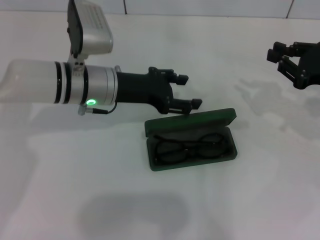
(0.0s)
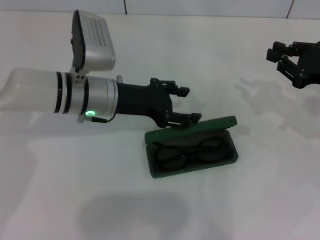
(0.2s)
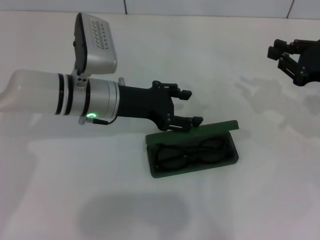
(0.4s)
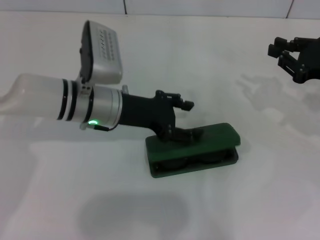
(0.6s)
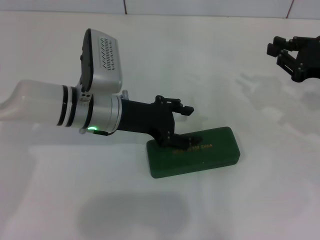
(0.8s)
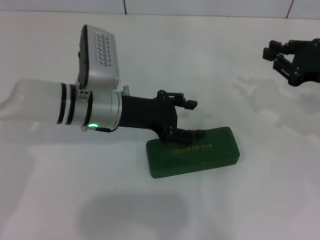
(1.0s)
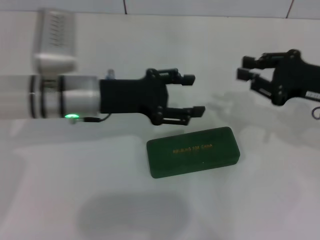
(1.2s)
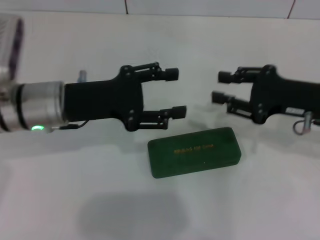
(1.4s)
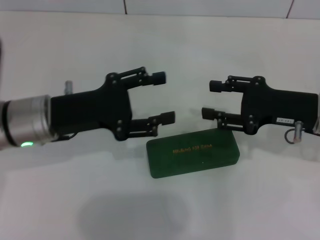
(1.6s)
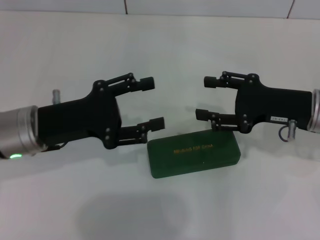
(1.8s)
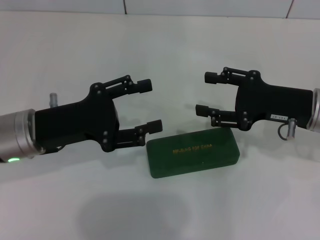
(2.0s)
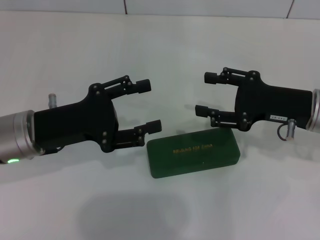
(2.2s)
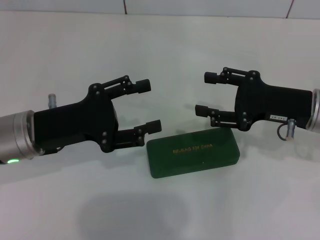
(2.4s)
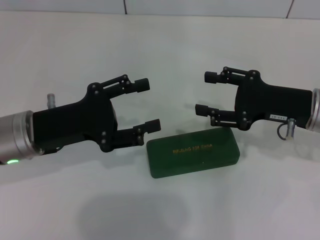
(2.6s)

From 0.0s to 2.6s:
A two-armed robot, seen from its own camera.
From 1.2s to 2.6s: The right gripper moves some 5 cm, and opens; the left gripper is displaced backward and to the left by about 10 cm.

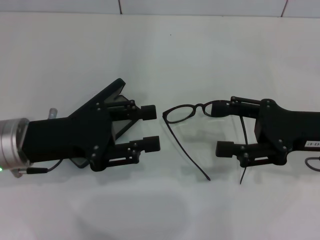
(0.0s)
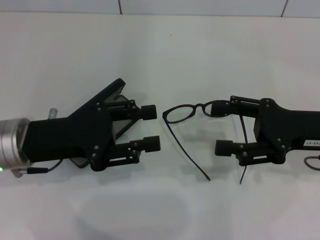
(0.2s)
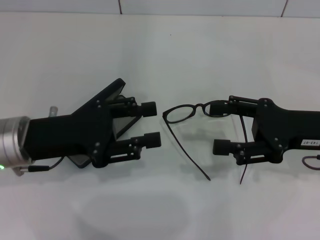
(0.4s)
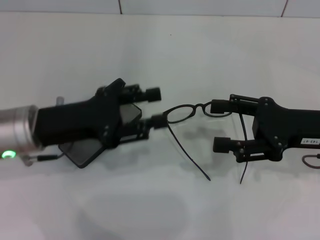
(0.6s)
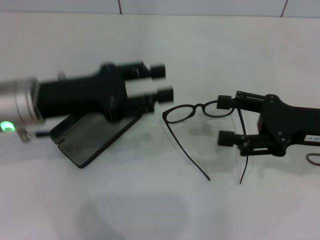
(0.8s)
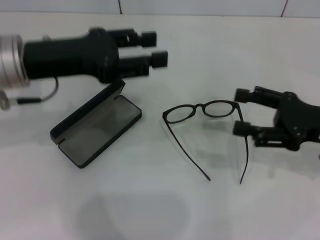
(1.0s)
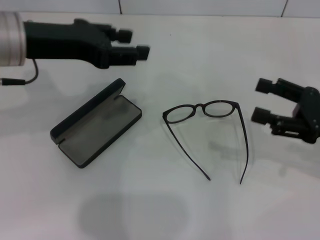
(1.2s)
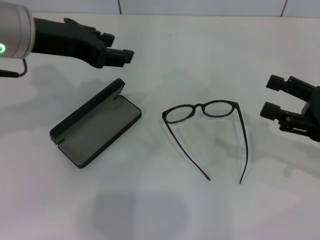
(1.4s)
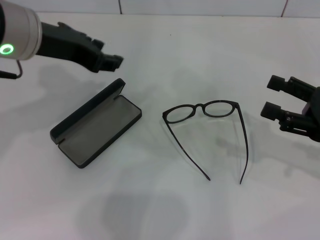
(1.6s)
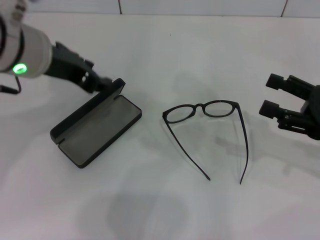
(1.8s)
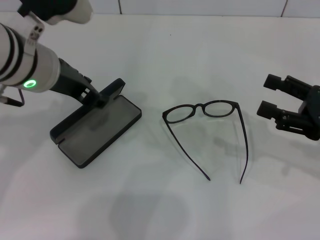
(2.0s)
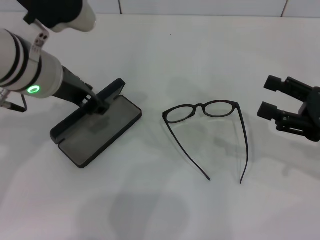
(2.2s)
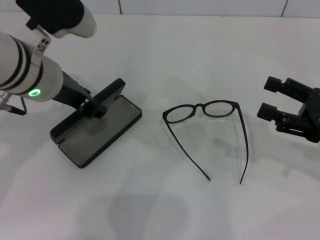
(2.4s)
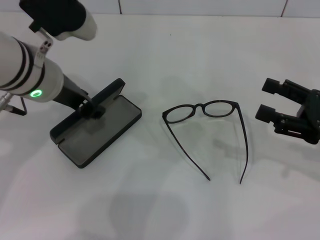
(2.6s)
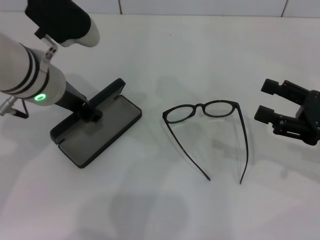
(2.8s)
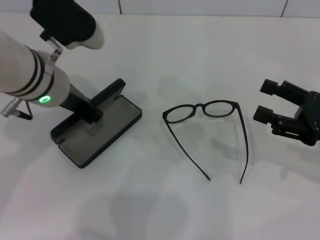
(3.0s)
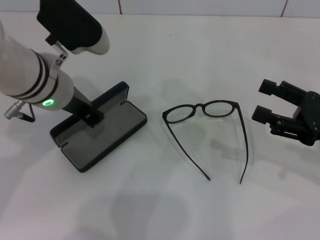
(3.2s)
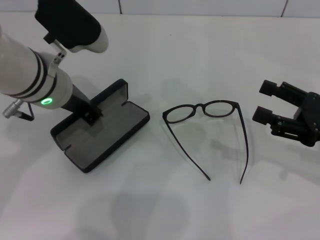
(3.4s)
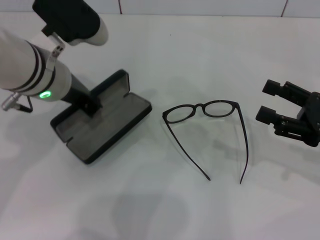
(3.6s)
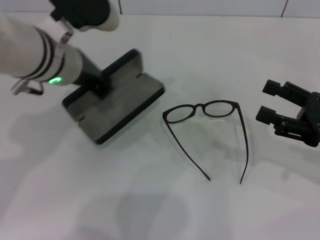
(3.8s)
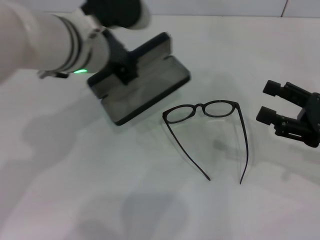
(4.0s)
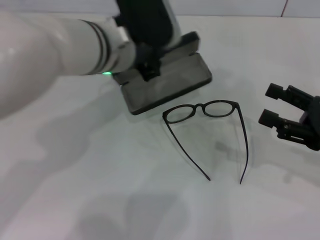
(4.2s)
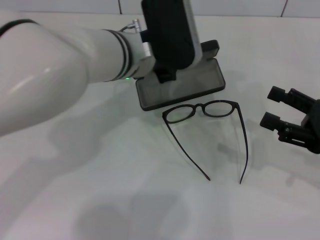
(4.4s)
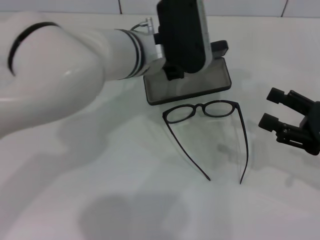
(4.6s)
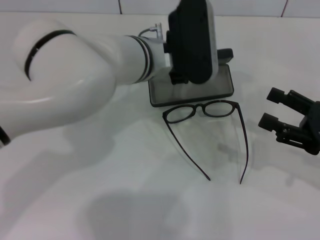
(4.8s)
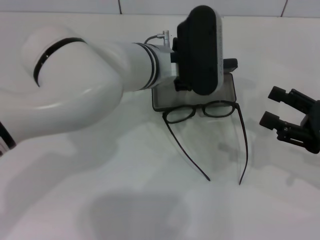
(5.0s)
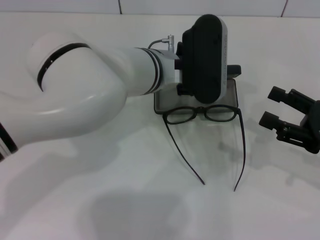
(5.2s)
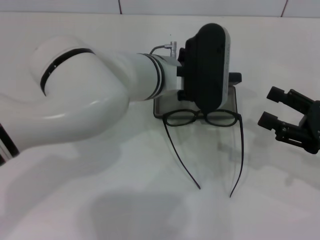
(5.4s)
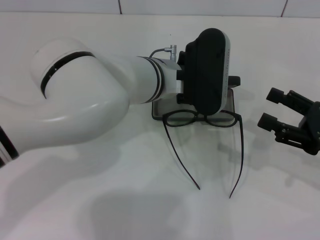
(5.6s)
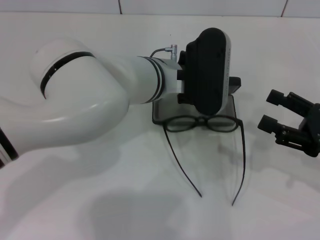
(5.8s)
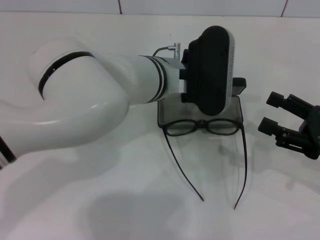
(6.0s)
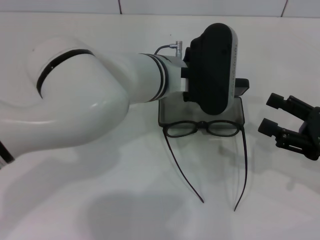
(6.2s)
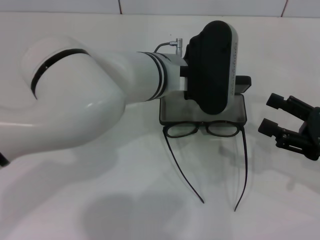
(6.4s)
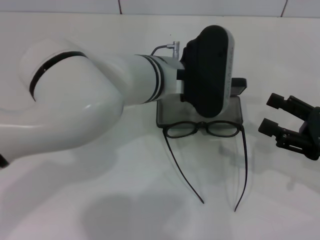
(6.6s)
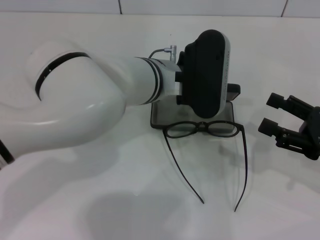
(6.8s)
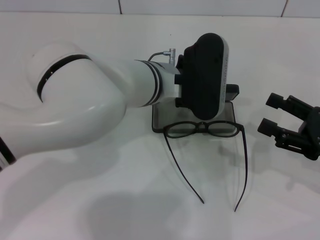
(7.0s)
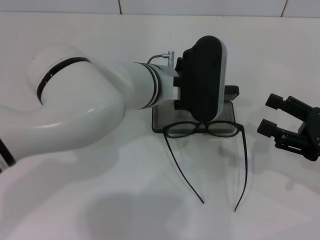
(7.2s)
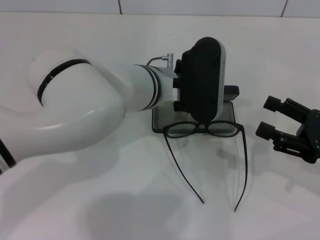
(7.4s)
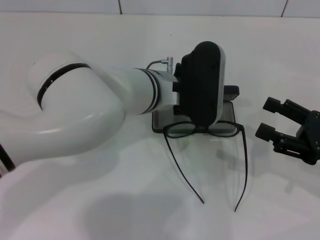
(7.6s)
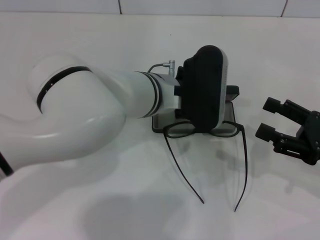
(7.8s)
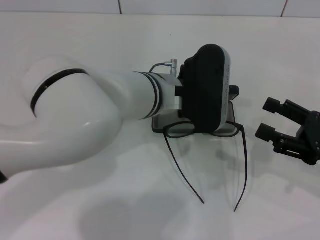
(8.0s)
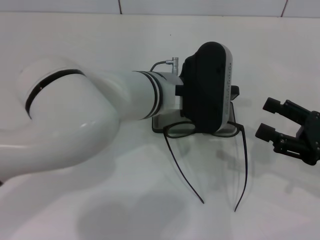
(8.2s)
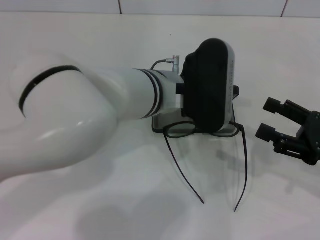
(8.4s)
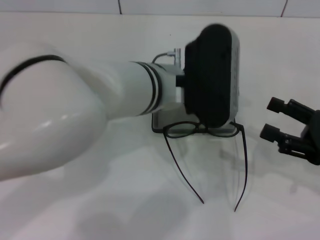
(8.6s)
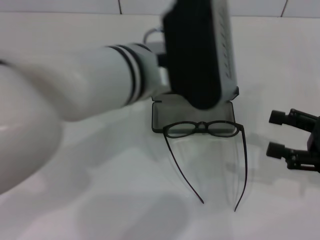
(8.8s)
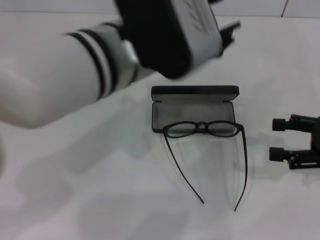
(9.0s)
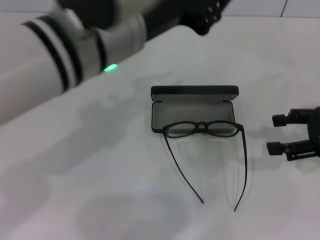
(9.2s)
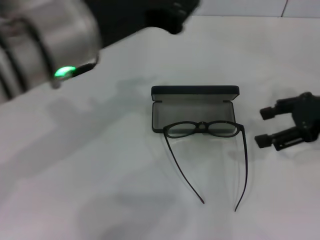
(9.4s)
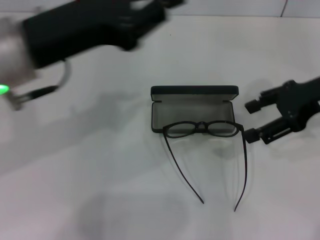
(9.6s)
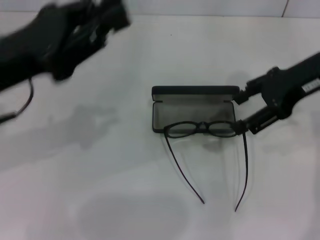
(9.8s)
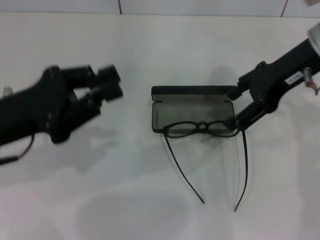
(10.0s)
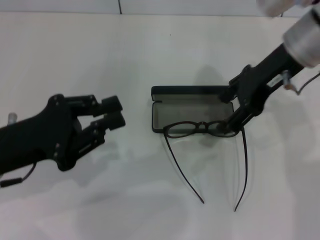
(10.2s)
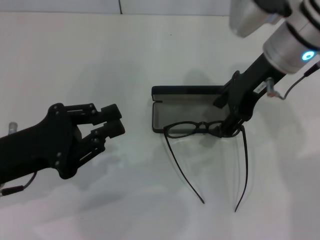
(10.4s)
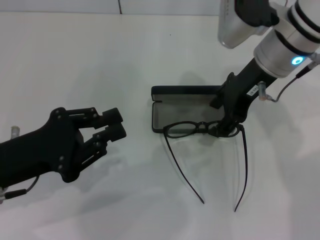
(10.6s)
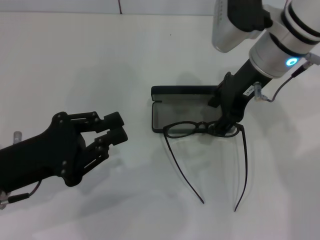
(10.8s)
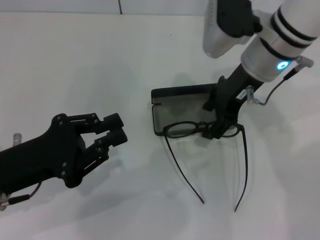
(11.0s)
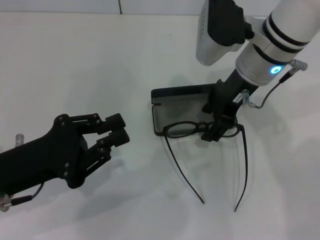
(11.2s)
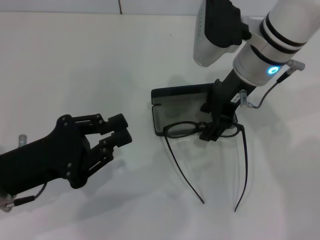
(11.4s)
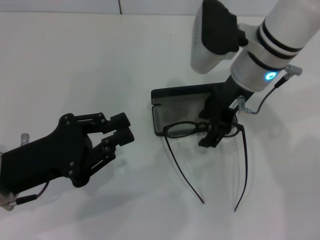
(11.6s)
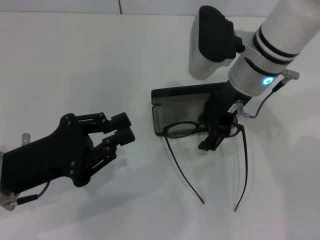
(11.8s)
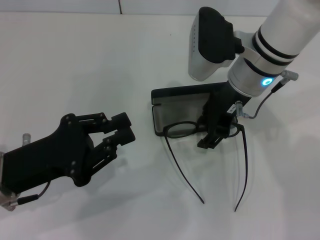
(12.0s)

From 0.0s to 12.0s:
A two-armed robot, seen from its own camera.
Step, from 0.0s to 3.2s: Grab the glasses case with your left hand.
Step, from 3.4s to 8.0s: Place the glasses case in the center of the table with your left hand.
From 0.0s to 1.6s: The right gripper heads to the right, covering some 5 cm. The left gripper goes approximately 15 cm upward and forward.
From 1.6s to 3.0s: The left gripper is displaced downward by some 10 cm.
From 3.0s to 4.4s: The left gripper heads to the right, covering about 10 cm, and closes up.
From 4.4s to 6.0s: The left gripper opens its fingers.
From 6.0s to 7.6s: The grippers stay close to where they were, moving slightly.
From 7.6s to 9.0s: The right gripper changes place by about 5 cm. Meanwhile the left gripper shifts roughly 15 cm upward and backward.
From 9.0s to 10.4s: The right gripper shifts approximately 25 cm to the left, forward and upward; the left gripper goes roughly 25 cm to the left and downward, and closes.
From 10.4s to 12.0s: The right gripper ends up roughly 5 cm from where it was.

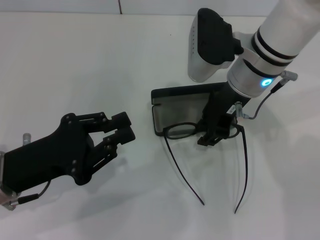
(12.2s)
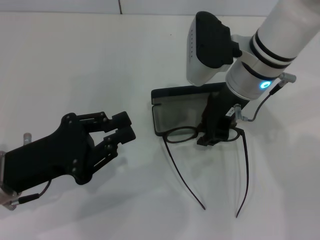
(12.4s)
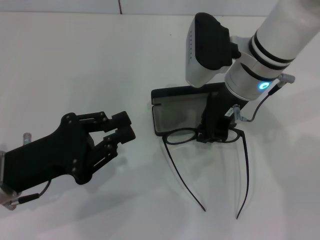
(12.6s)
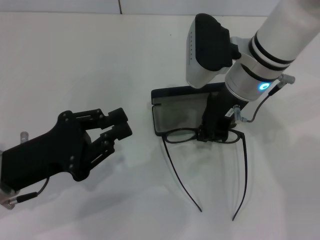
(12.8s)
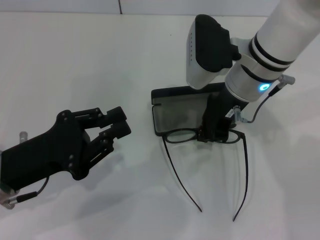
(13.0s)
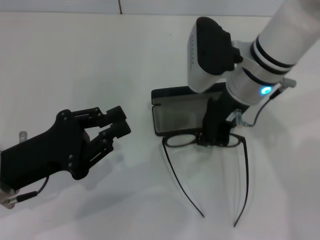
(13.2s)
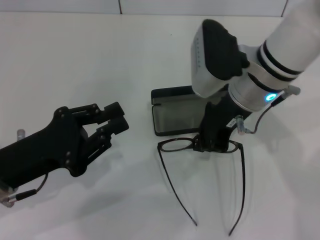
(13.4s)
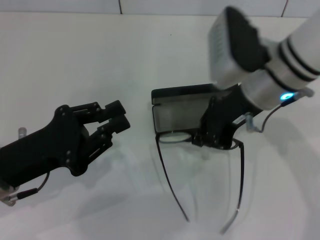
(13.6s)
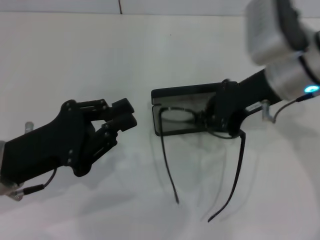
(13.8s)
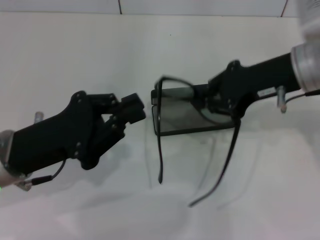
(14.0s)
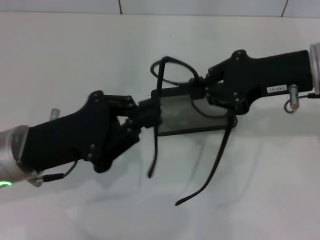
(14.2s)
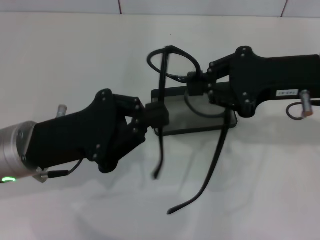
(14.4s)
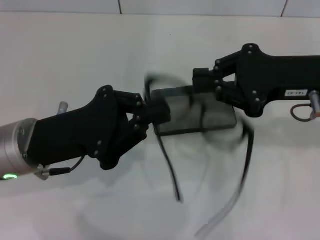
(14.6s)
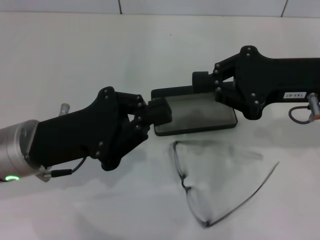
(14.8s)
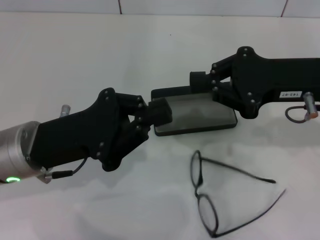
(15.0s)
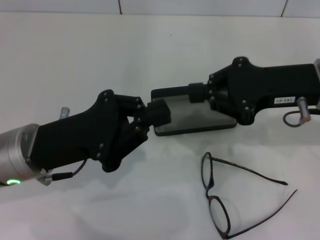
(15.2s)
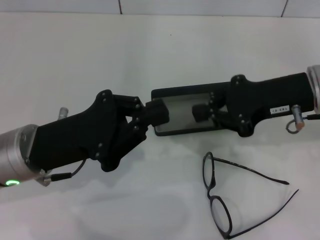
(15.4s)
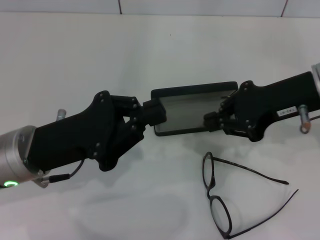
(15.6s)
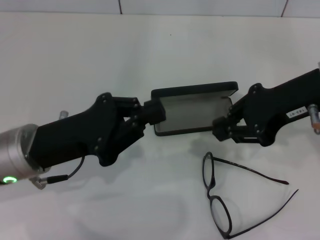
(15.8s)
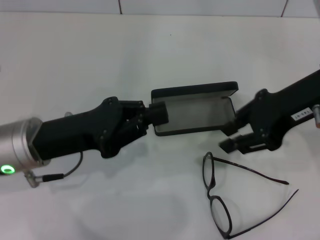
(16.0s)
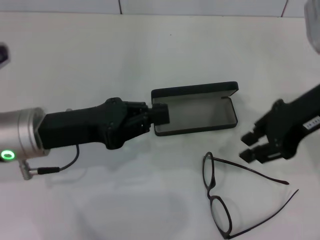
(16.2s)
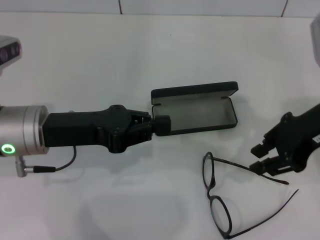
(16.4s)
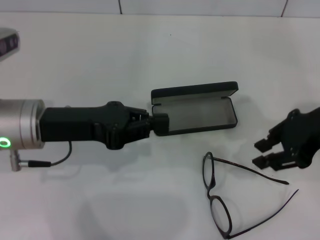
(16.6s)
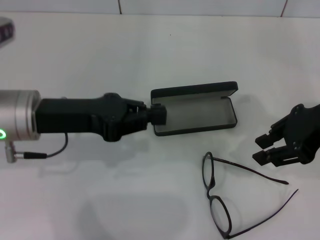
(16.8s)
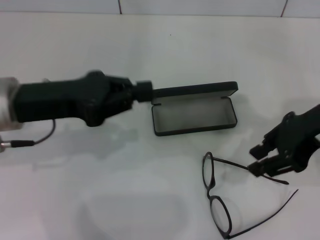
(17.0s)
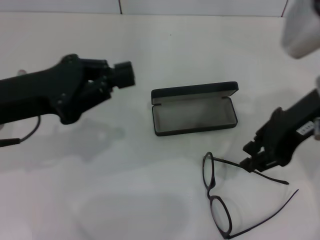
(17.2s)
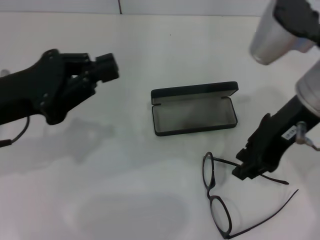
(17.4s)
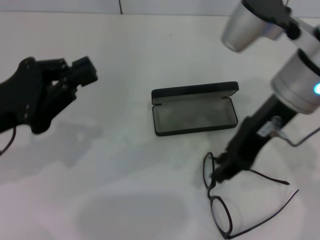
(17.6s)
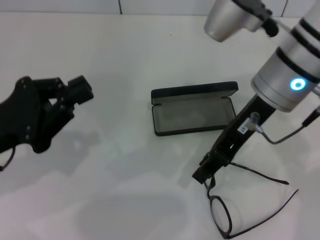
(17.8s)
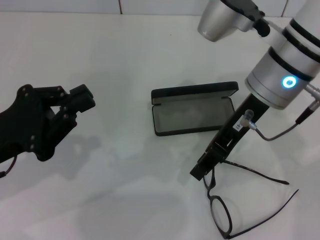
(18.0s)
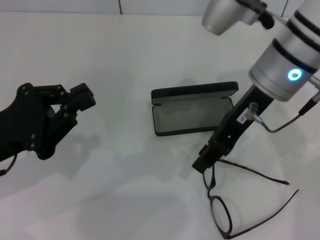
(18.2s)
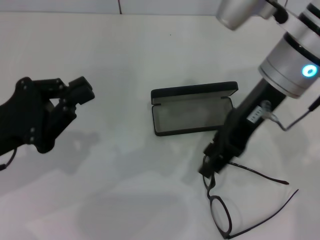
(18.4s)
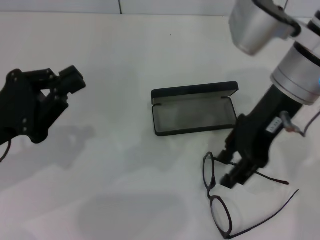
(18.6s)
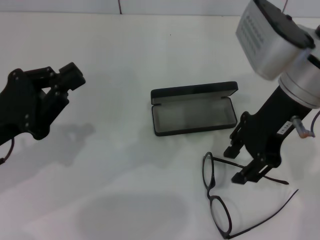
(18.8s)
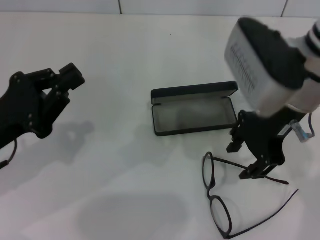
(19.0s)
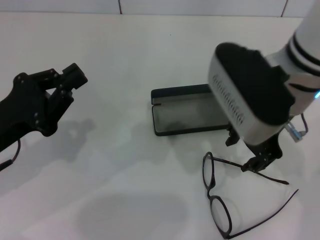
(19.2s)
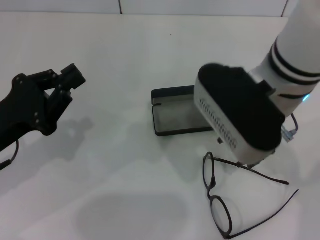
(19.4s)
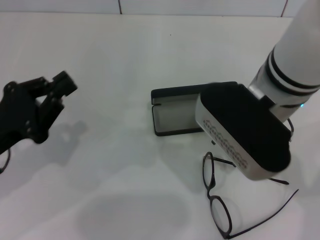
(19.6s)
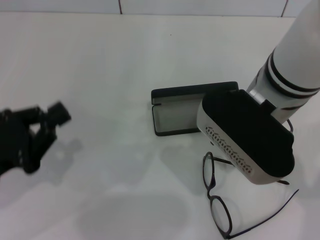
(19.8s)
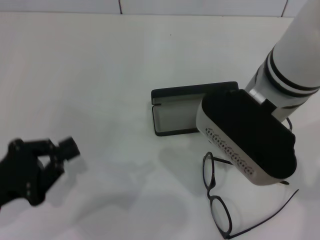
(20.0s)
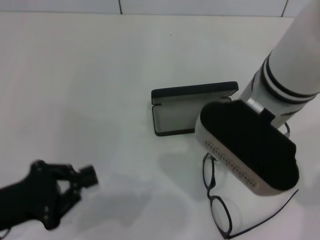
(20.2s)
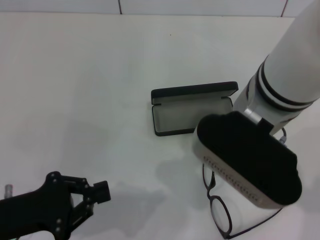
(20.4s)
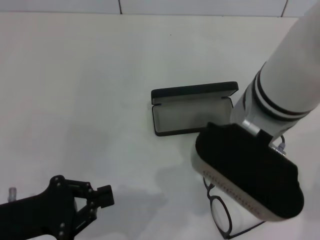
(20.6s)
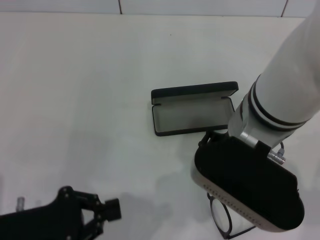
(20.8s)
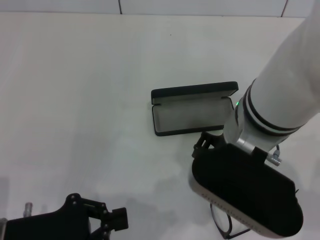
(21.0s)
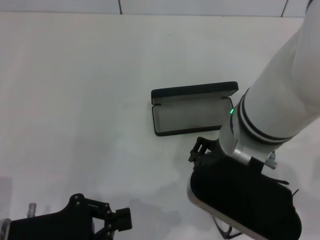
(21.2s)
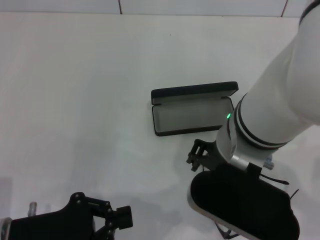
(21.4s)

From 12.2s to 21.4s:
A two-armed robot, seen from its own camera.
From 12.2s to 13.8s: The right gripper travels to the right by some 5 cm, and closes up.
From 13.8s to 15.2s: The right gripper is displaced to the right by some 5 cm.
From 15.2s to 16.8s: The right gripper ends up approximately 5 cm from where it was, and opens up. The left gripper changes place by some 5 cm.
From 16.8s to 18.4s: The right gripper shifts approximately 10 cm to the left; the left gripper goes approximately 10 cm to the left and backward.
From 18.4s to 19.8s: The left gripper ends up roughly 5 cm from where it was. Meanwhile the right gripper shifts by some 5 cm.
From 19.8s to 21.4s: The left gripper shifts by approximately 5 cm. The right gripper ends up some 5 cm from where it was.
